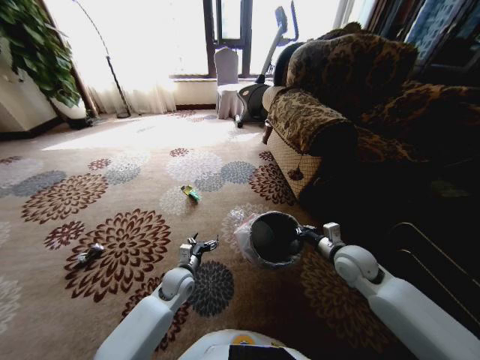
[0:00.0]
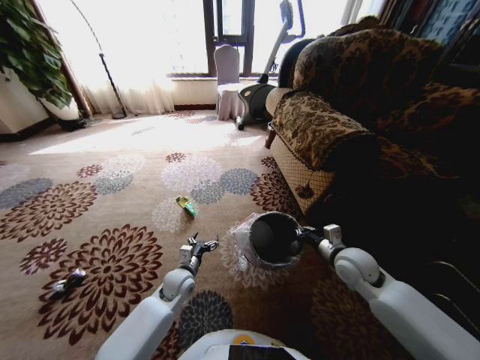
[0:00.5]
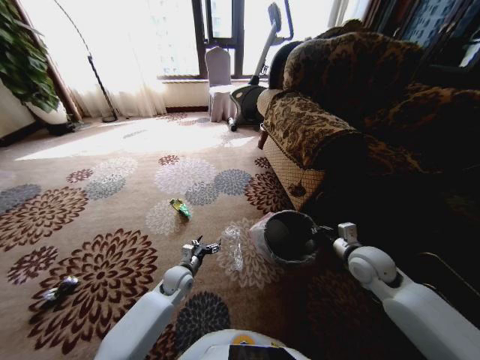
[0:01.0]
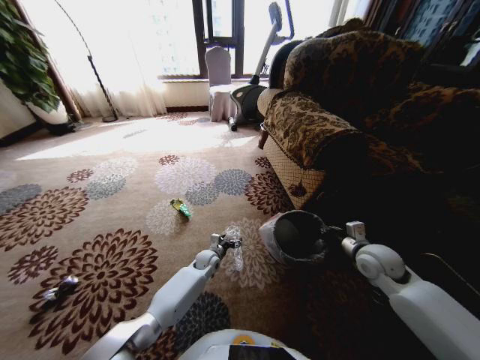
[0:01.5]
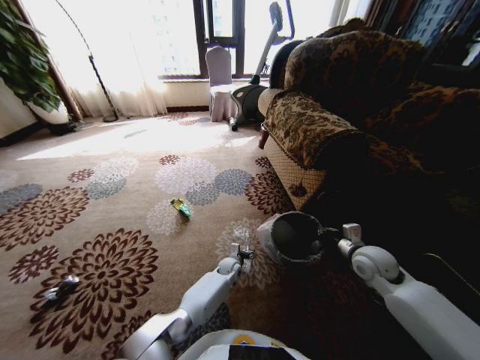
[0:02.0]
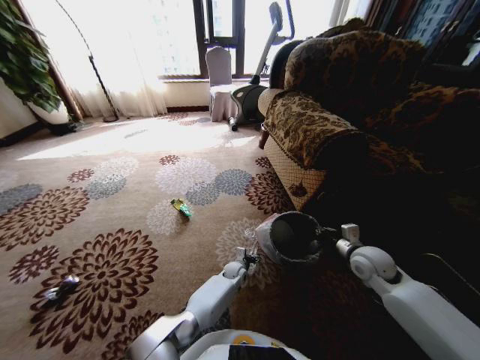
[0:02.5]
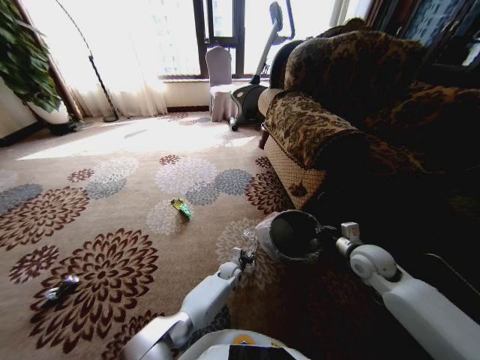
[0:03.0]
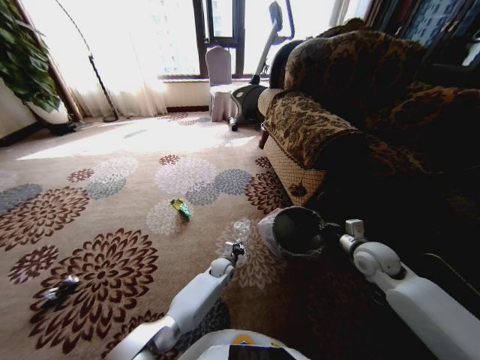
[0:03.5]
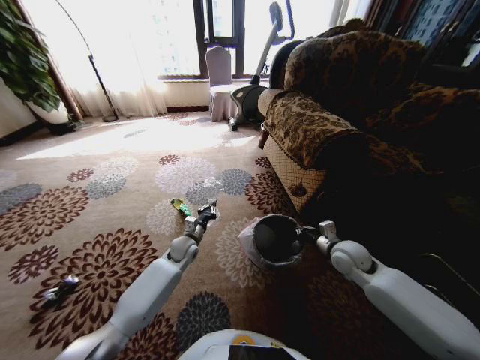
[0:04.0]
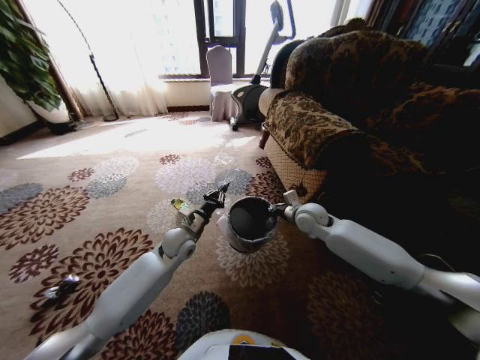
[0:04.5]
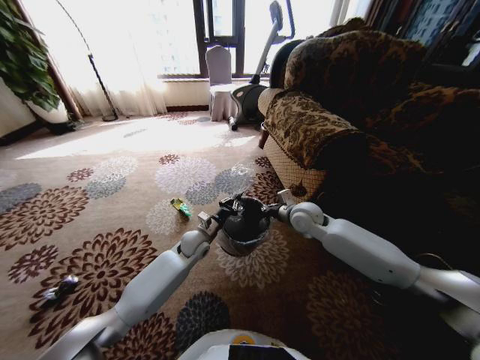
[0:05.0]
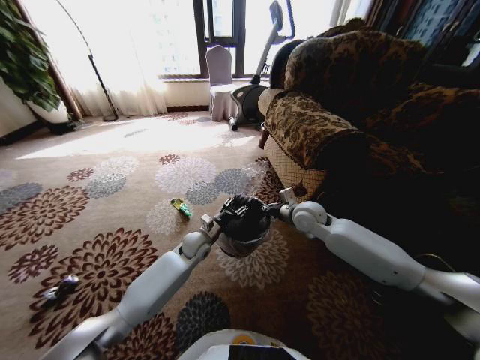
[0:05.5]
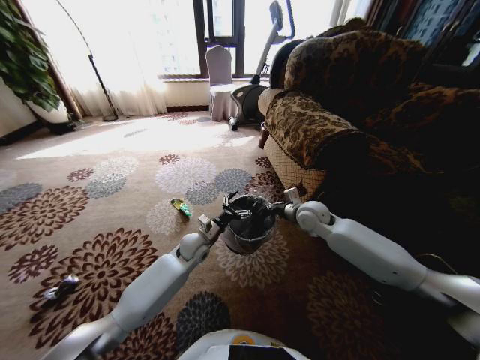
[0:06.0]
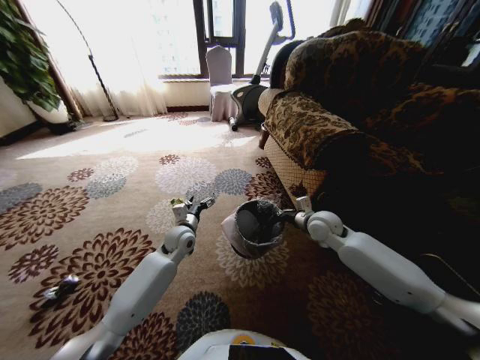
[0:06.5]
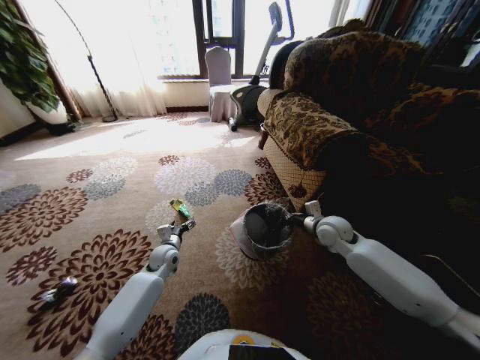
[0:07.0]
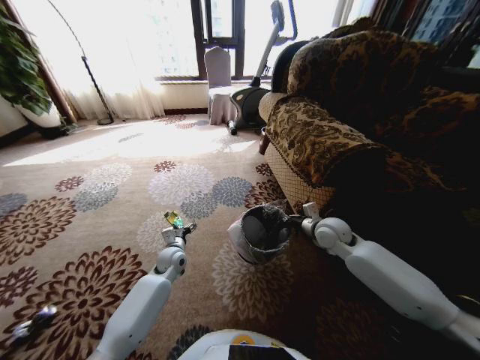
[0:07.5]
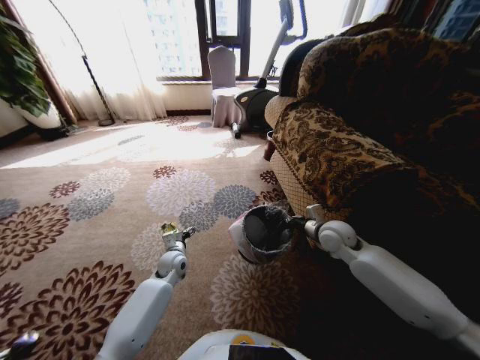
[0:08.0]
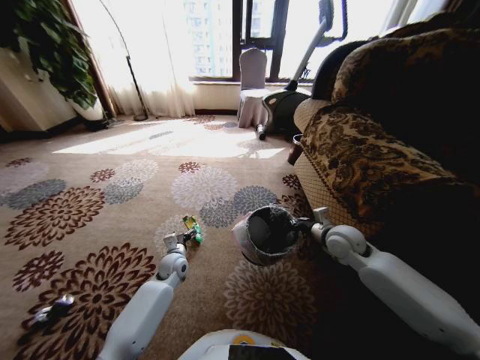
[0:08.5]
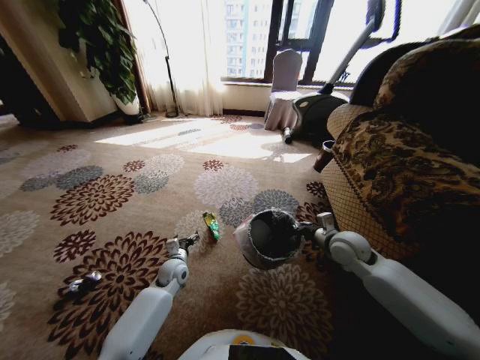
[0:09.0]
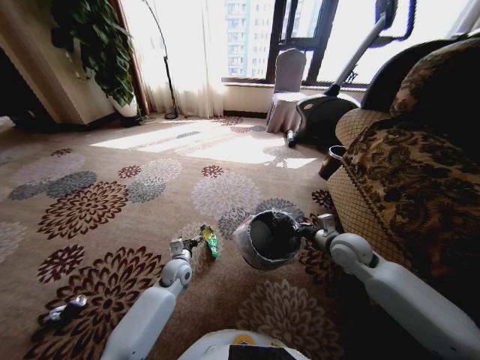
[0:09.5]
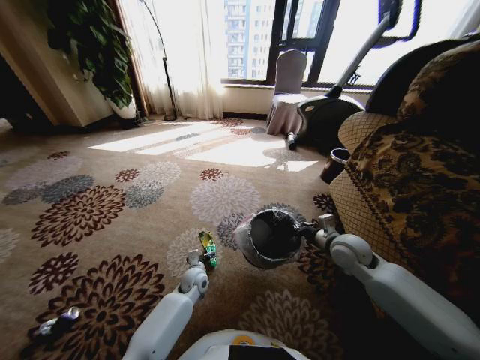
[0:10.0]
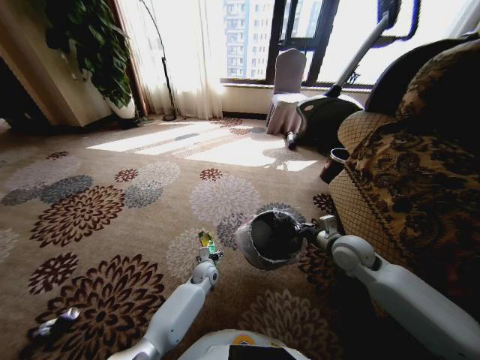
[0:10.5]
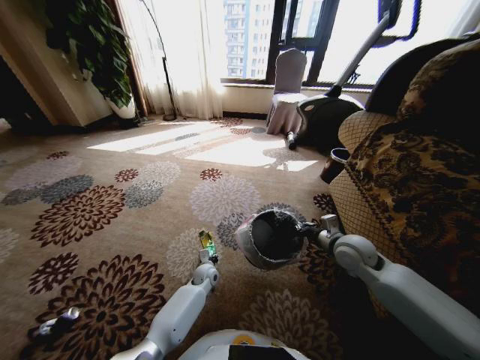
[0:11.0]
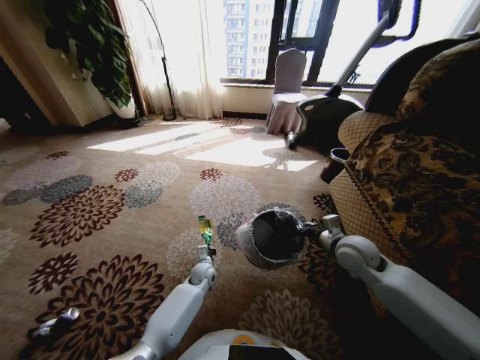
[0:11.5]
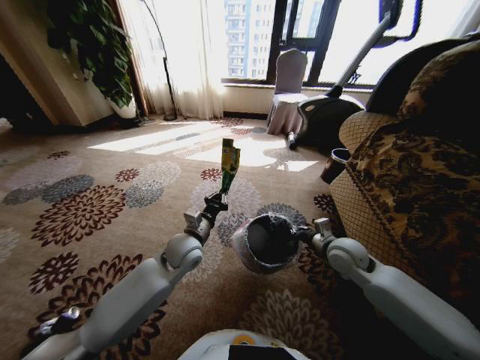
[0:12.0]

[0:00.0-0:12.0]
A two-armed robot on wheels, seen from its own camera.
Task of the whole recording: Pick up the trash from the ground and place it into the trash bin.
0:00.0 to 0:02.0: The right gripper moves to the right, some 5 cm. Meanwhile the left gripper travels to the right, downward and forward by some 20 cm.
0:02.0 to 0:04.0: The right gripper changes place by roughly 5 cm, while the left gripper moves upward and to the left, about 20 cm, and closes.
0:04.0 to 0:06.0: The right gripper heads forward, to the left and upward, covering some 15 cm; the left gripper changes place by roughly 5 cm, and opens up.
0:06.0 to 0:08.0: The right gripper goes some 10 cm to the right and backward. Meanwhile the left gripper travels to the left and downward by some 10 cm.
0:08.0 to 0:10.0: The left gripper moves to the right and downward, roughly 10 cm.
0:10.0 to 0:12.0: The left gripper moves upward, approximately 20 cm, and closes its fingers.

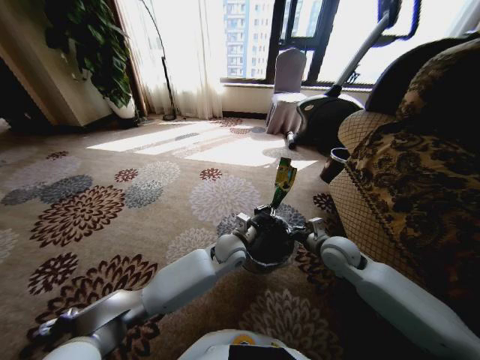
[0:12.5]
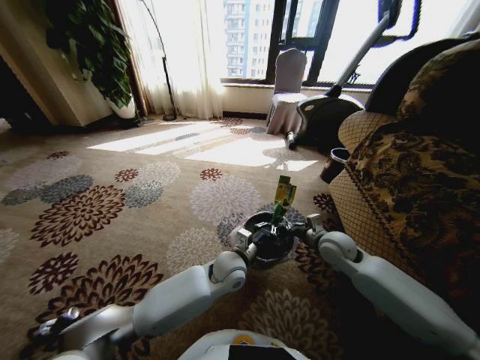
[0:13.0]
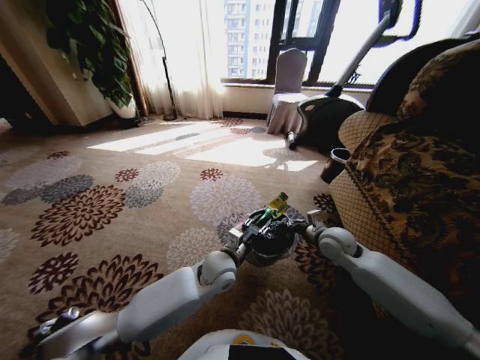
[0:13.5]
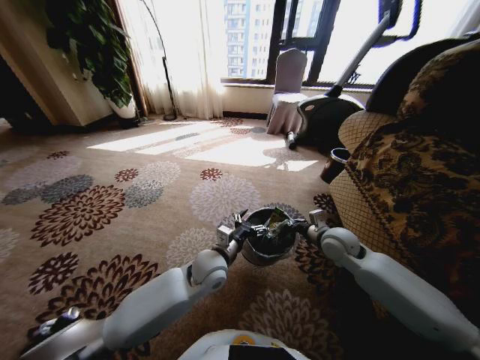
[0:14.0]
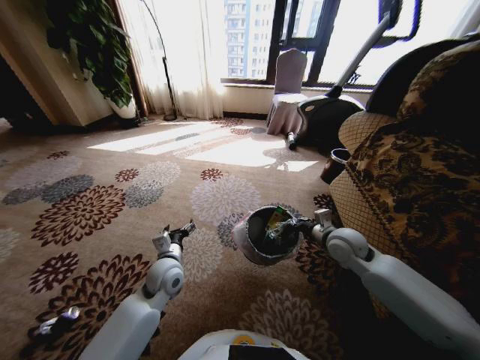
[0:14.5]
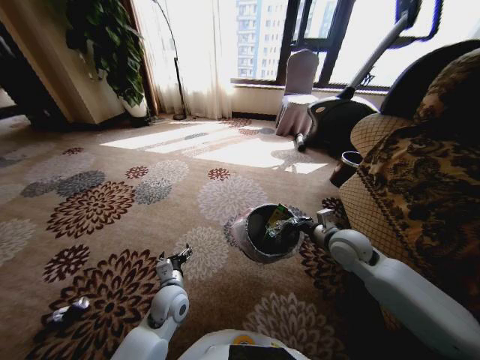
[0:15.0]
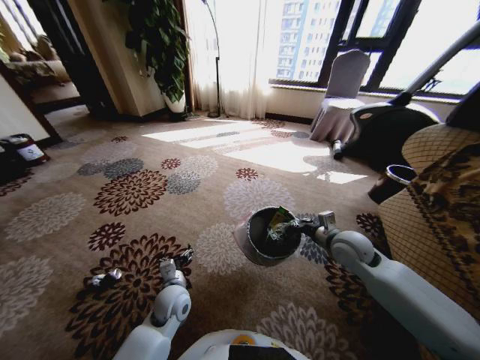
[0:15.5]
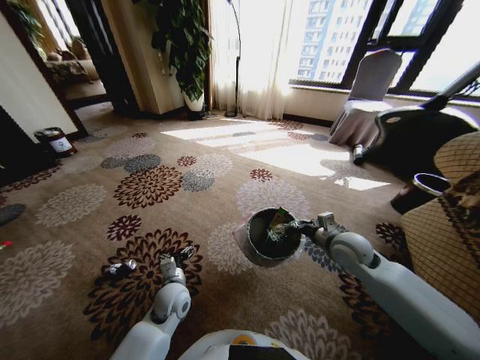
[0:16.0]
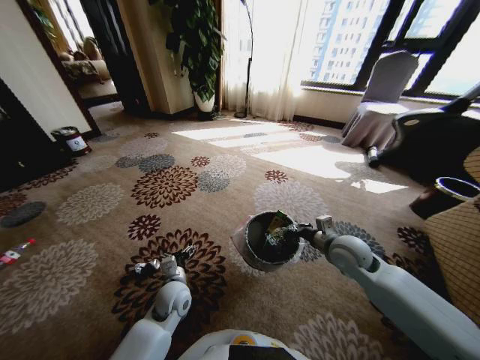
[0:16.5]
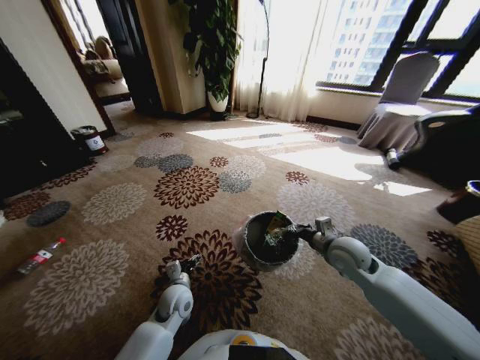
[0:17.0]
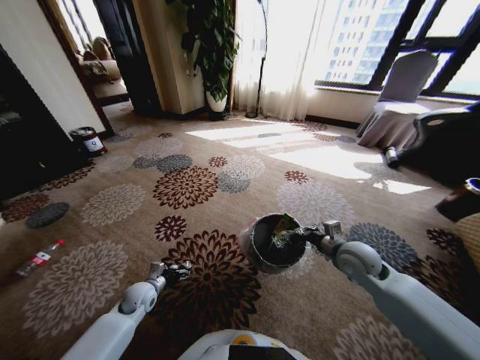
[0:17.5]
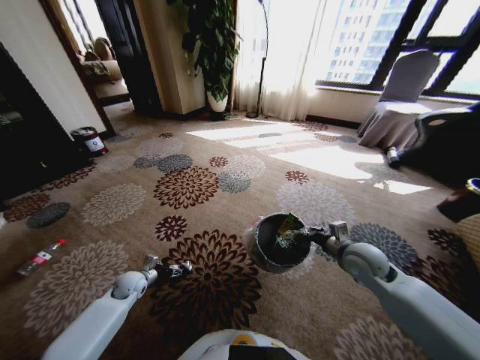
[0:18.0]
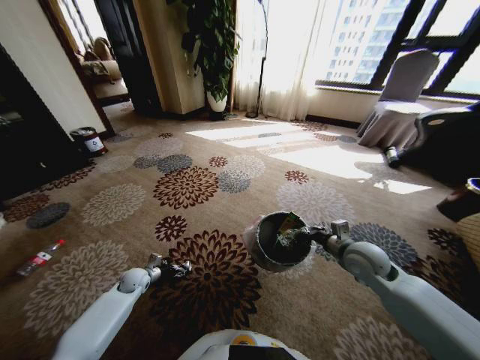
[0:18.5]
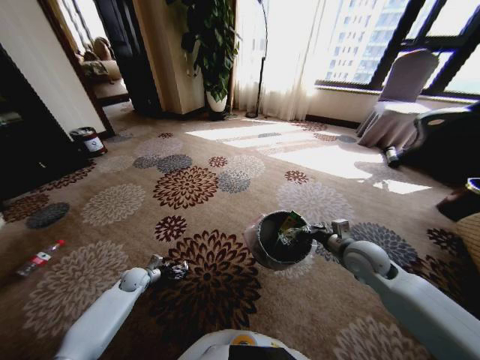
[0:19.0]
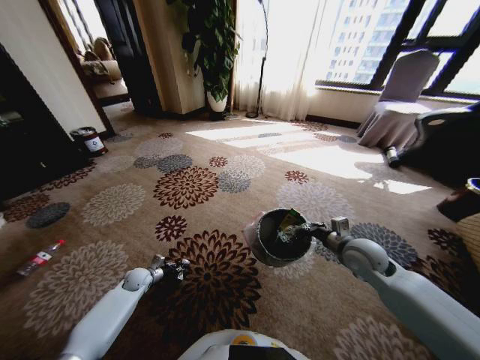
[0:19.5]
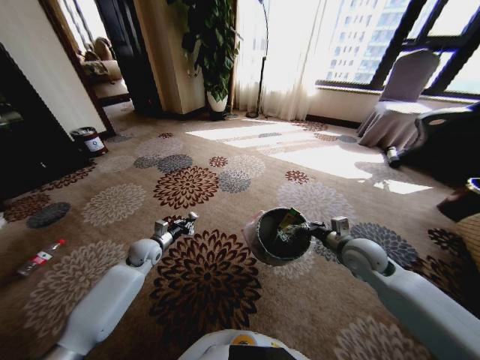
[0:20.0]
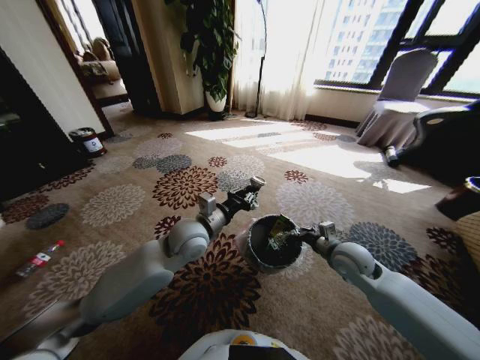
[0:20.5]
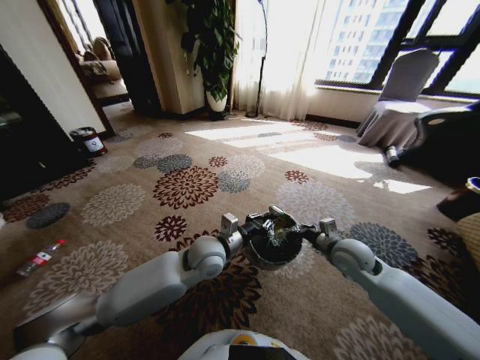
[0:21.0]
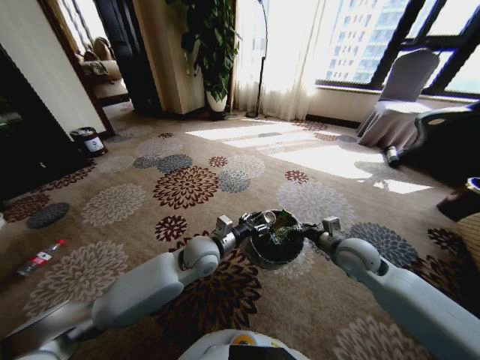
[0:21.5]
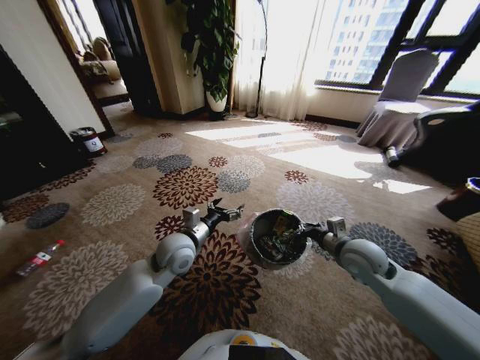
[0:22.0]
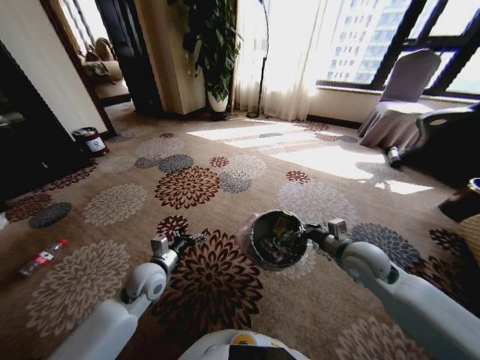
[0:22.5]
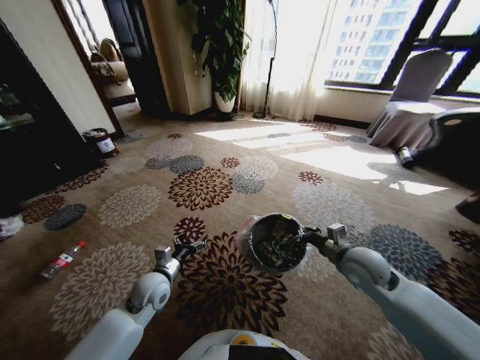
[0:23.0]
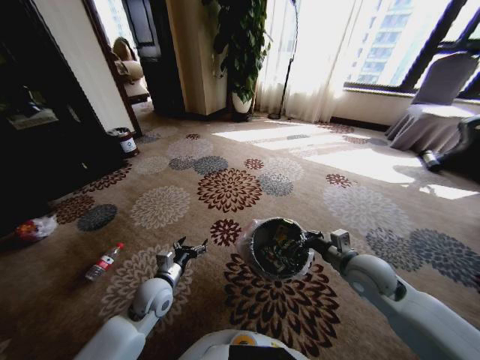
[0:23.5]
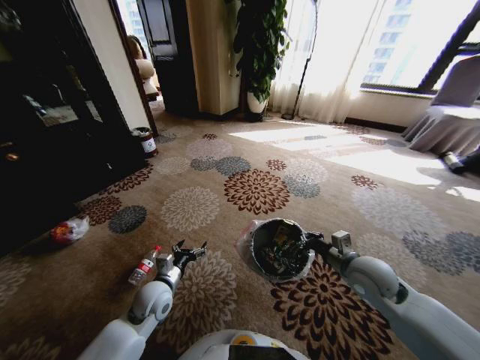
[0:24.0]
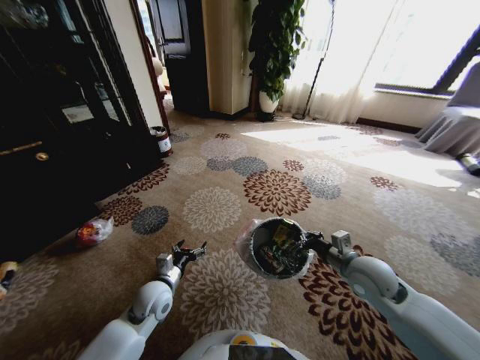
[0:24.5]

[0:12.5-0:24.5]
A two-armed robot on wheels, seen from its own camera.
Task of the whole recording: Pick up the trash from the ground and place it into the trash bin.
0:12.5 to 0:14.5: The left gripper moves to the left and backward, roughly 20 cm, and opens its fingers.
0:14.5 to 0:16.5: The left gripper is displaced downward by some 10 cm.
0:16.5 to 0:18.5: The left gripper moves to the left and downward, some 20 cm.
0:18.5 to 0:20.5: The left gripper travels upward and to the right by some 40 cm, and closes up.
0:20.5 to 0:22.5: The left gripper is displaced downward, to the left and backward by roughly 20 cm, and opens.
0:22.5 to 0:24.5: The left gripper changes place by roughly 5 cm.

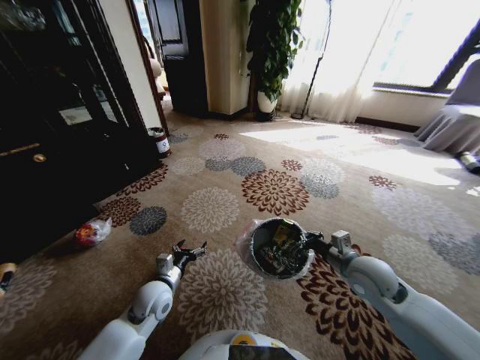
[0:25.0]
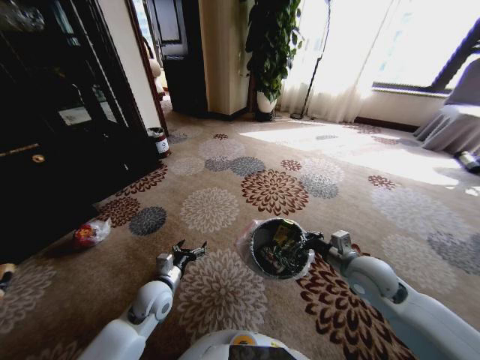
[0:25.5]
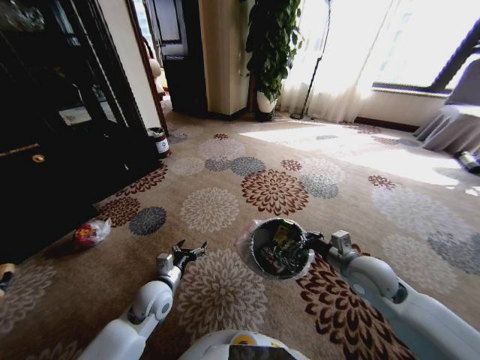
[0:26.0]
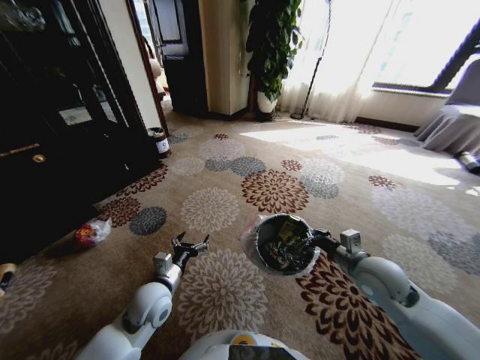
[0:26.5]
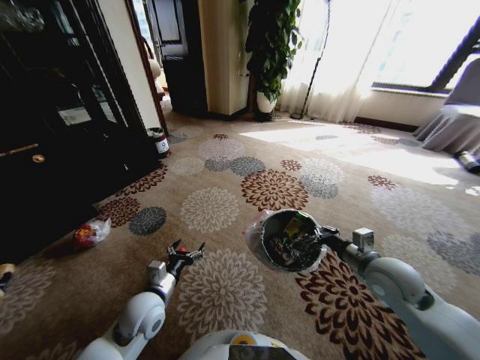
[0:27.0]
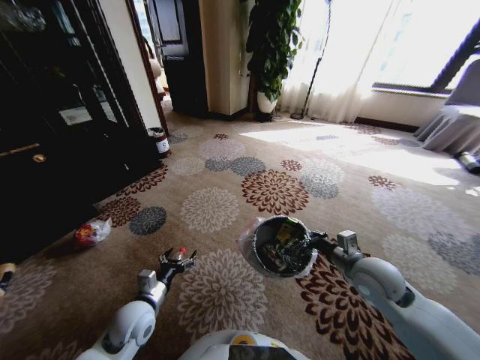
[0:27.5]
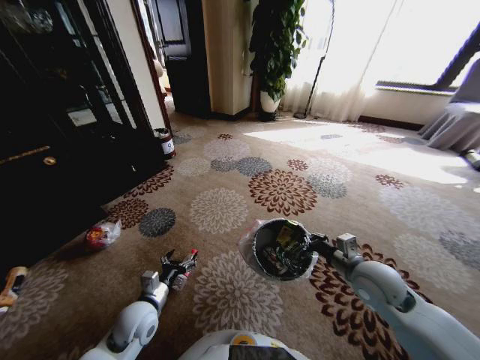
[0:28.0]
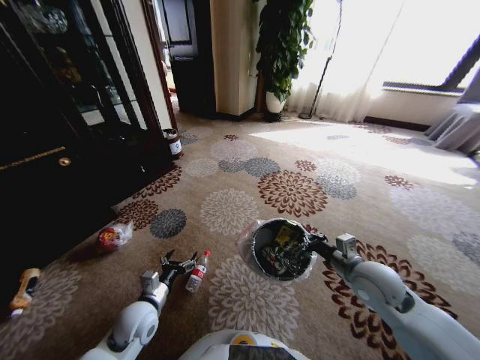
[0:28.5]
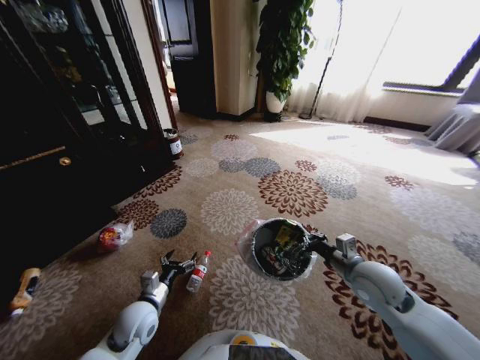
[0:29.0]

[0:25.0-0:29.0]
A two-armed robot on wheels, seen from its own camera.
Task of the whole recording: Pick up the trash from the ground and place it into the trash bin.
0:25.0 to 0:27.0: There are only small adjustments of the grippers.
0:27.0 to 0:29.0: The left gripper ends up about 5 cm from where it was.
